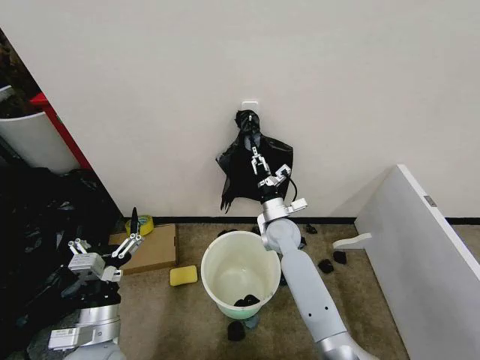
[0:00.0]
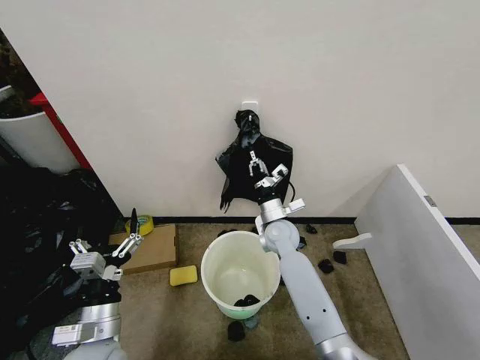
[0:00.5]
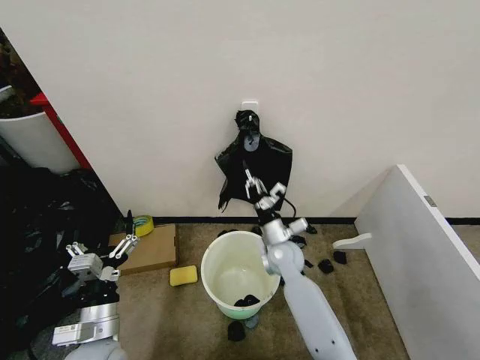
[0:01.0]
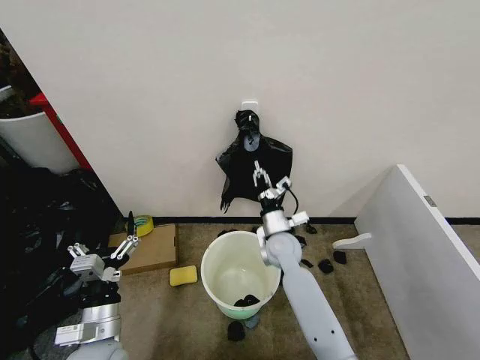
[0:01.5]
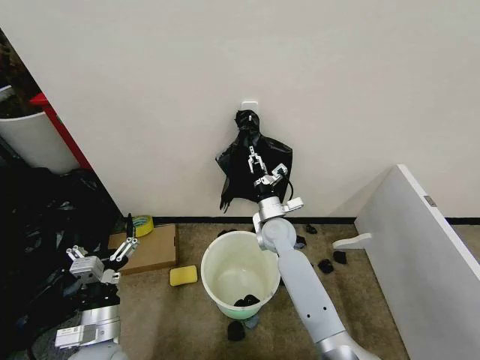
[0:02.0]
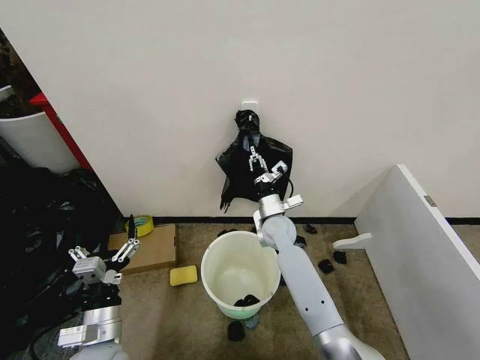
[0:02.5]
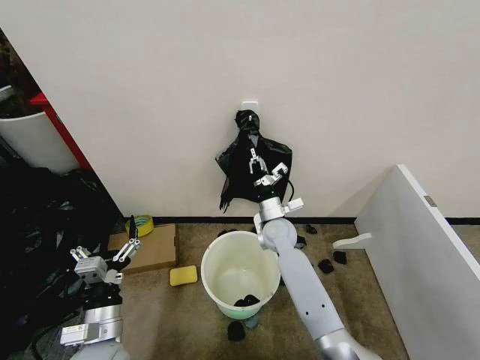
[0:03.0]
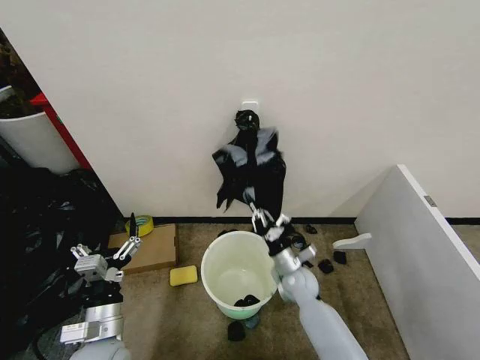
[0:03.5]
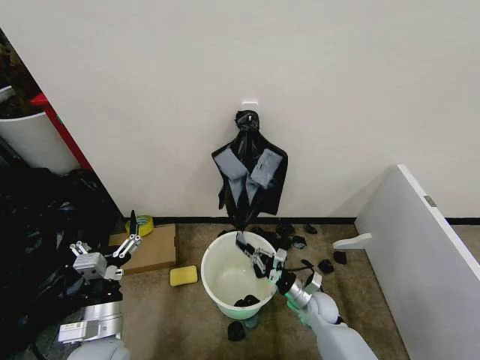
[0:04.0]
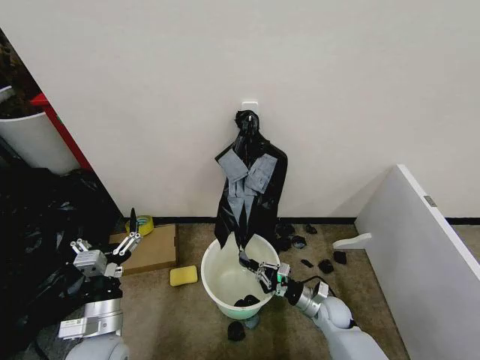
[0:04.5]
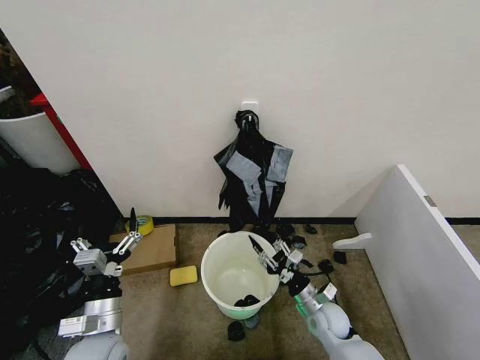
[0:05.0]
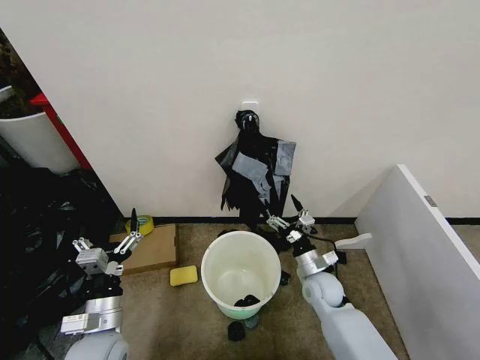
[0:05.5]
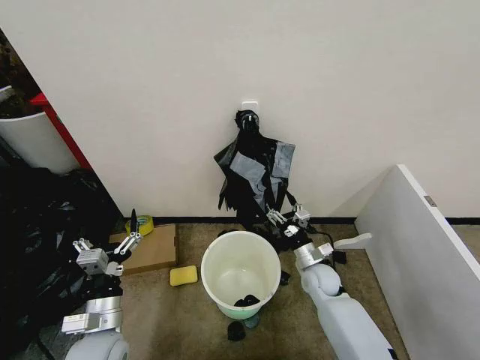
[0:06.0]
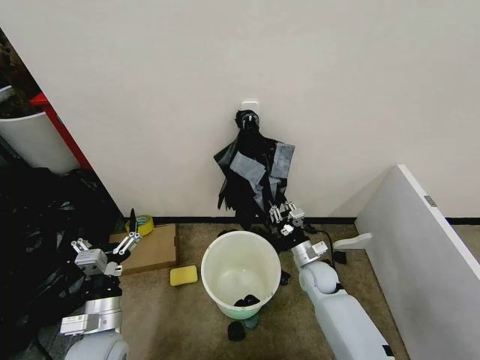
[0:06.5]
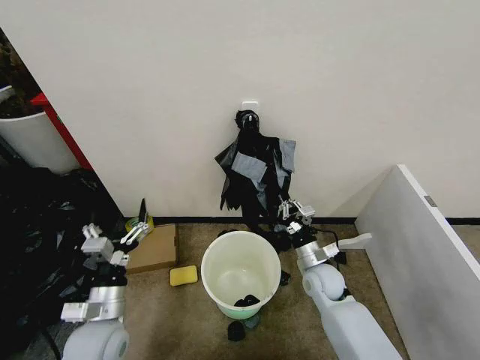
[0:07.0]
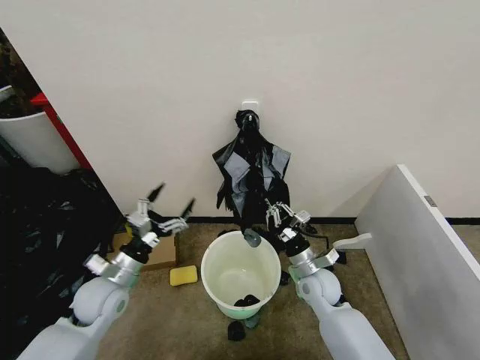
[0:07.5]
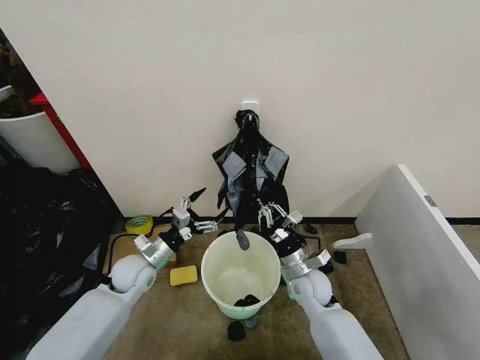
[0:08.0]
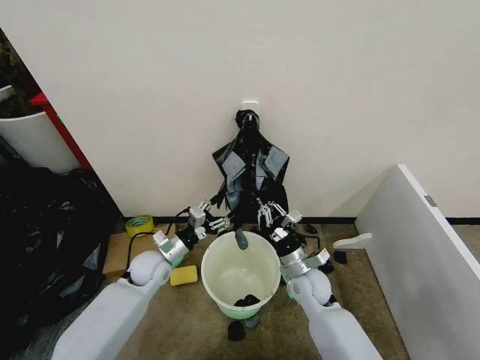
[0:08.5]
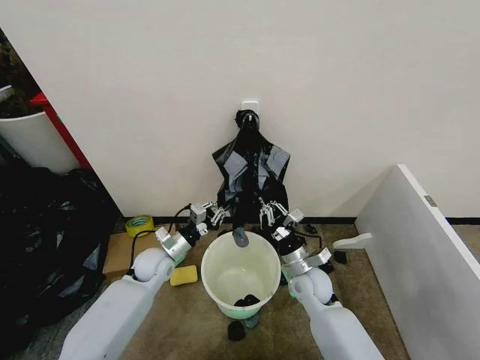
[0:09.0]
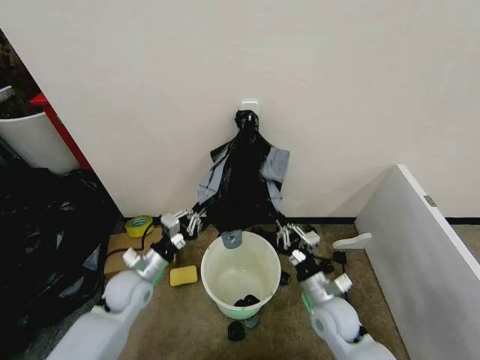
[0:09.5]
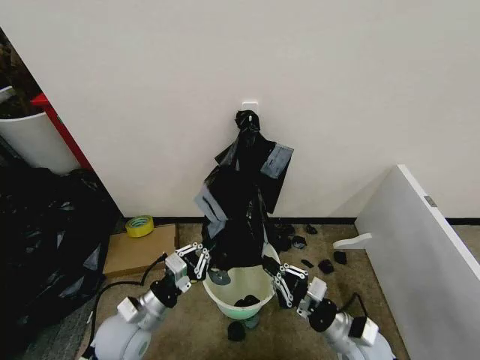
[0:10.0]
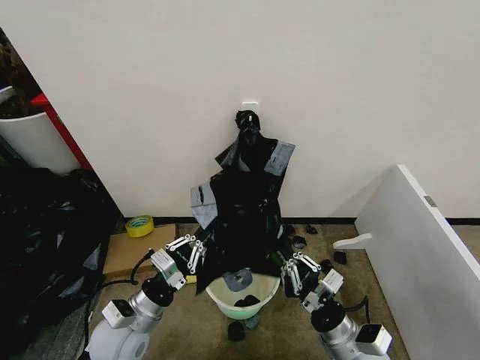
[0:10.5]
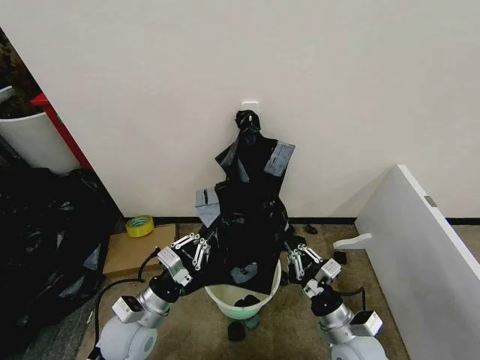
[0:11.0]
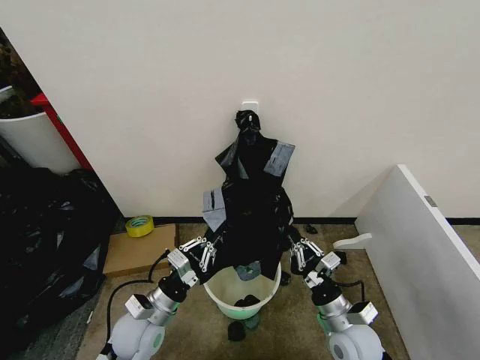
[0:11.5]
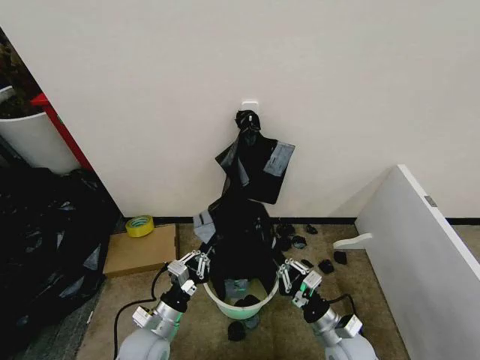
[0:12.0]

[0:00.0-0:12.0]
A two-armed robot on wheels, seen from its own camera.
Task of the whole recording: Place the garbage bag over the trash bin.
0:00.0 to 0:02.0: The right gripper closes, then opens again.
0:02.0 to 0:04.0: The right gripper shifts roughly 25 cm downward, backward and to the right, and closes up.
0:04.0 to 0:06.0: The right gripper shifts roughly 10 cm upward and forward, and opens its fingers.
0:06.0 to 0:08.0: The right gripper shifts by roughly 10 cm, and closes its fingers; the left gripper travels forward by roughly 15 cm.
0:08.0 to 0:10.0: The left gripper travels backward by about 15 cm, and closes; the right gripper travels backward and to the right by some 15 cm.
0:10.0 to 0:12.0: The left gripper changes place by roughly 5 cm.

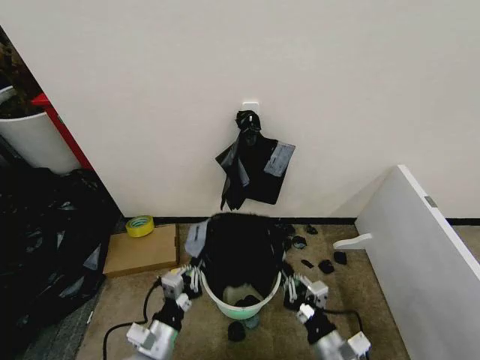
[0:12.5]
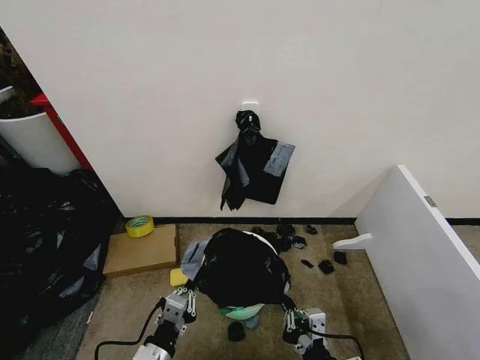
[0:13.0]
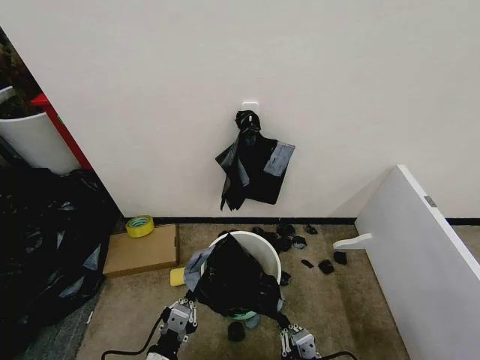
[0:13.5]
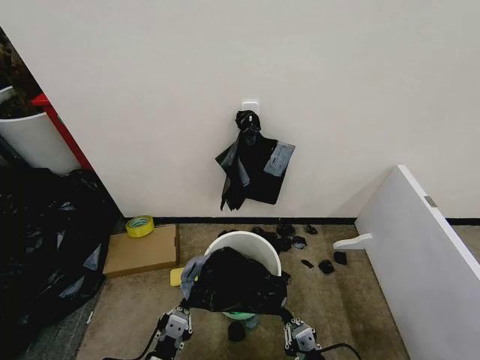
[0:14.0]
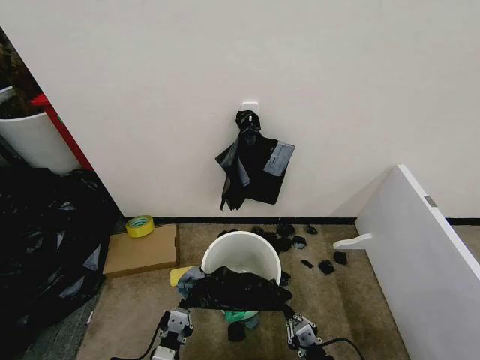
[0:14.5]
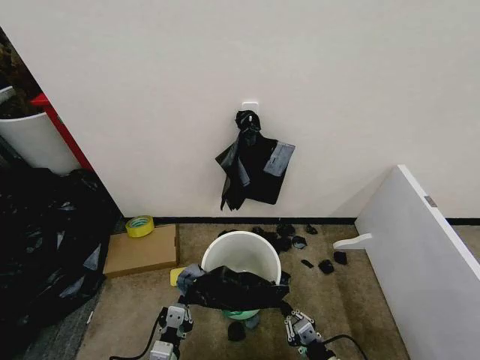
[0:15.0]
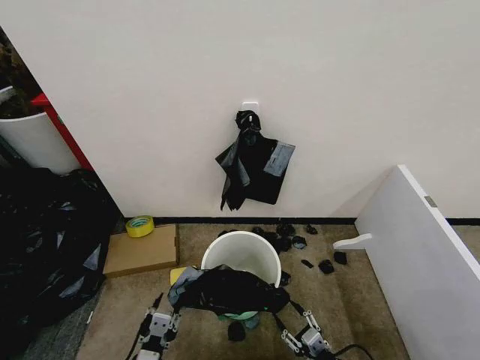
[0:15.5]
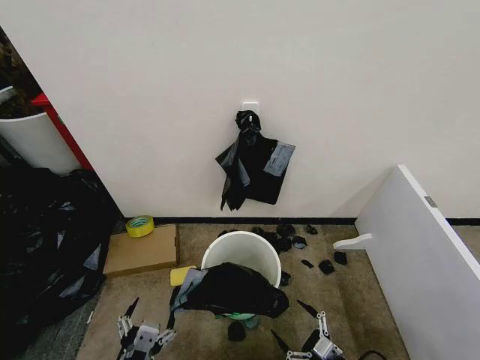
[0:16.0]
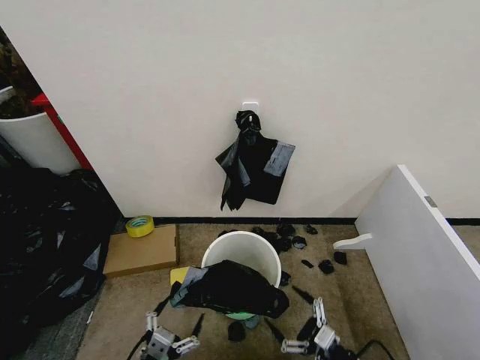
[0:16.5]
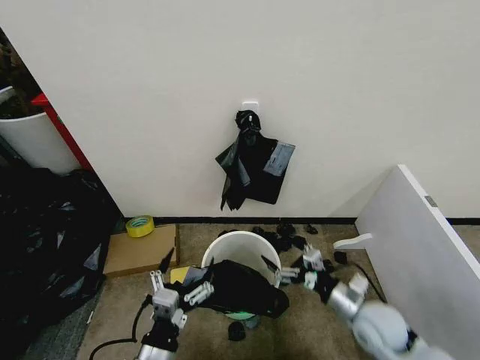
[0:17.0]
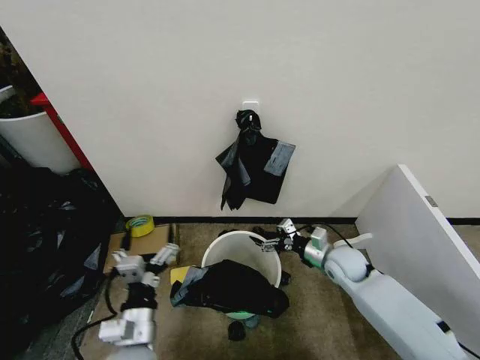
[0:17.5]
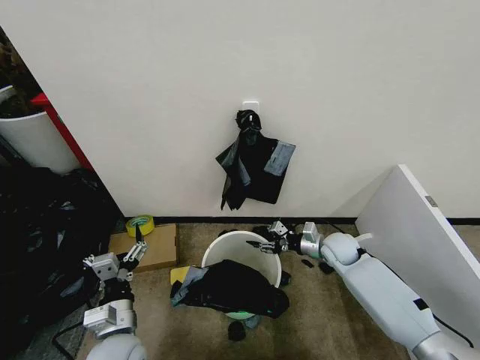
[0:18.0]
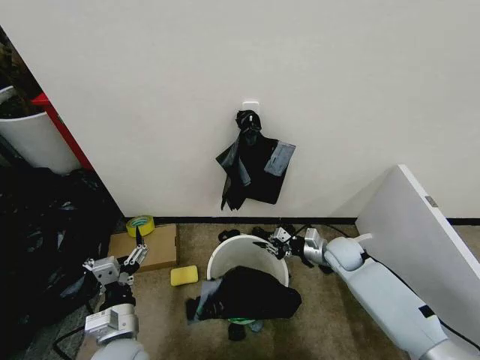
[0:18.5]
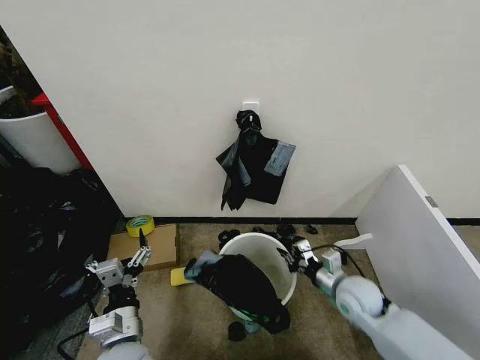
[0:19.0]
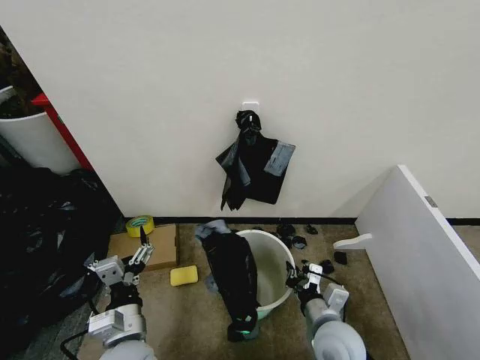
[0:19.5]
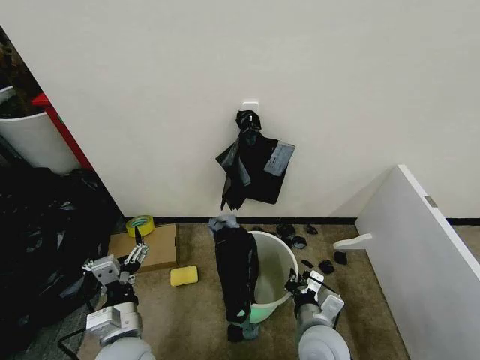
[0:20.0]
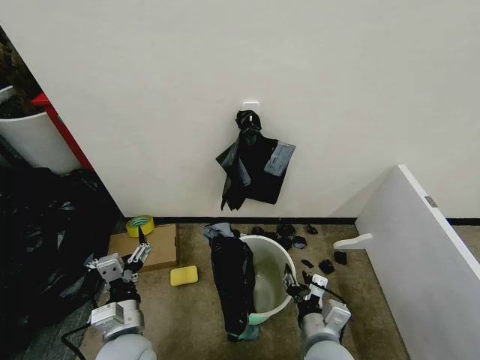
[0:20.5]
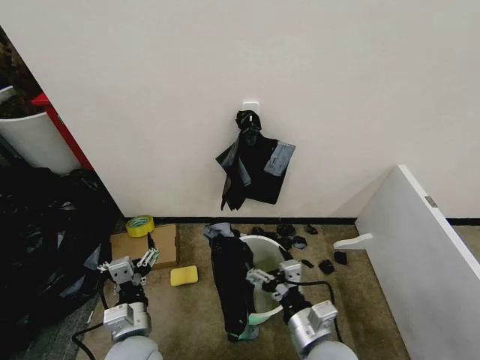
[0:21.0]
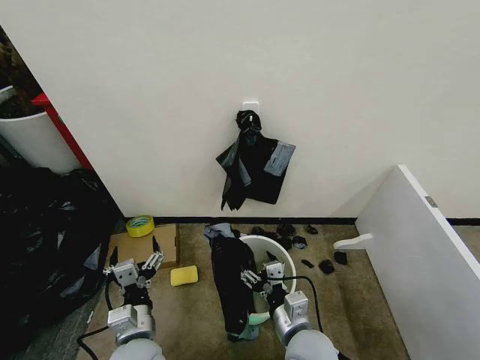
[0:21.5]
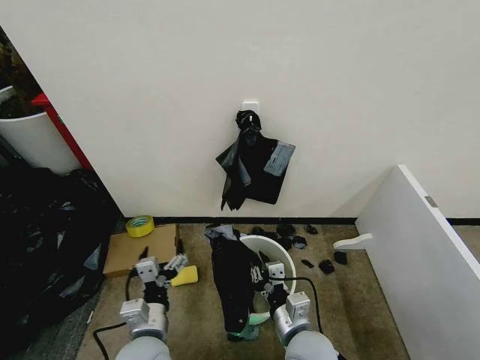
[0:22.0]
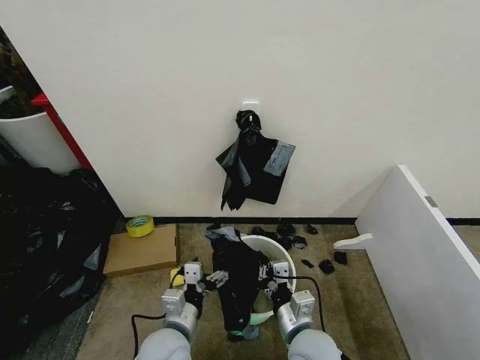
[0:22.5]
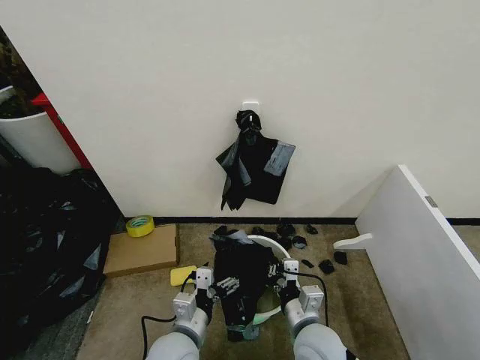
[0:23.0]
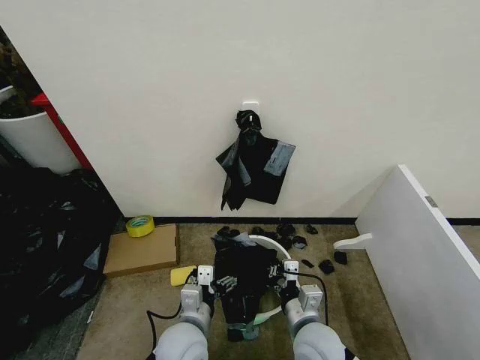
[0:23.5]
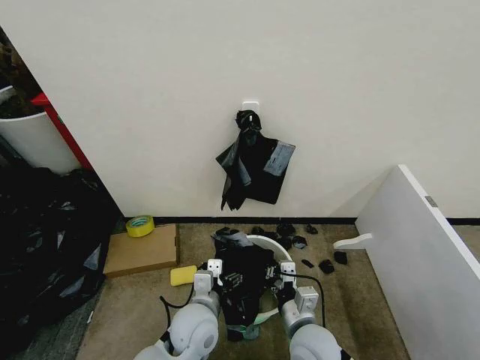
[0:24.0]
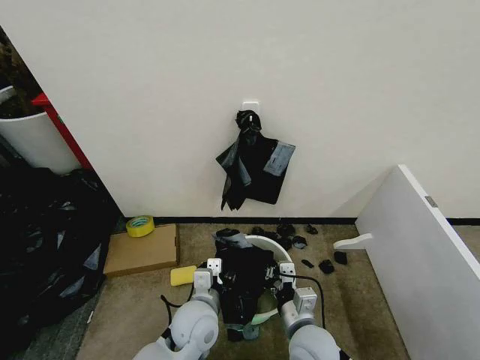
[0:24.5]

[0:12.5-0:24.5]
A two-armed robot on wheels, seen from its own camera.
Task of the whole recording: Place the garbage bag over the trash bin.
0:12.5 to 0:14.5: The right gripper shifts approximately 10 cm downward, while the left gripper moves backward, about 5 cm.
0:14.5 to 0:16.5: The left gripper moves to the left, some 5 cm, and opens up. Meanwhile the right gripper travels to the right by roughly 5 cm, and opens.
0:16.5 to 0:18.5: The left gripper shifts some 10 cm forward, while the right gripper heads forward, covering about 30 cm, and closes up.
0:18.5 to 0:20.5: The right gripper shifts roughly 30 cm backward and to the left, and opens its fingers.
0:20.5 to 0:22.5: The left gripper travels to the right by about 5 cm, while the right gripper closes.
0:22.5 to 0:24.5: The left gripper moves to the right and forward, approximately 10 cm, and closes up.

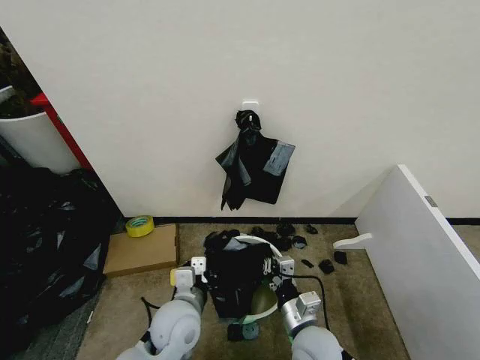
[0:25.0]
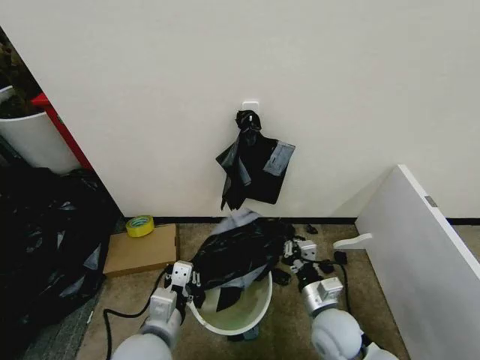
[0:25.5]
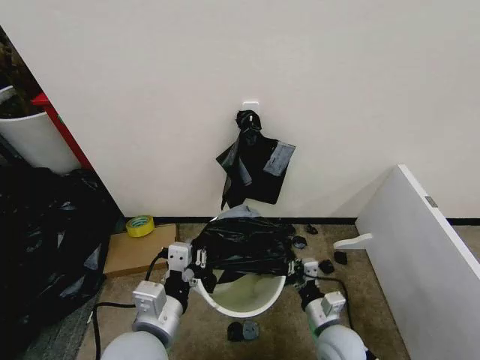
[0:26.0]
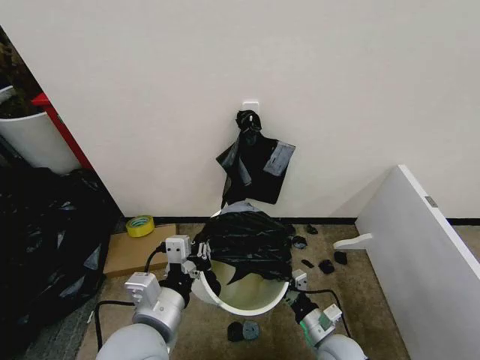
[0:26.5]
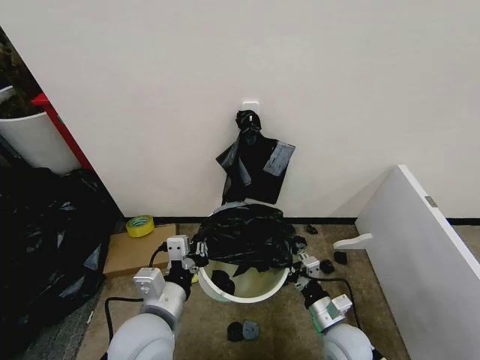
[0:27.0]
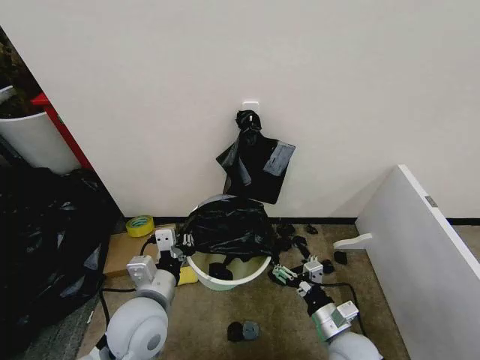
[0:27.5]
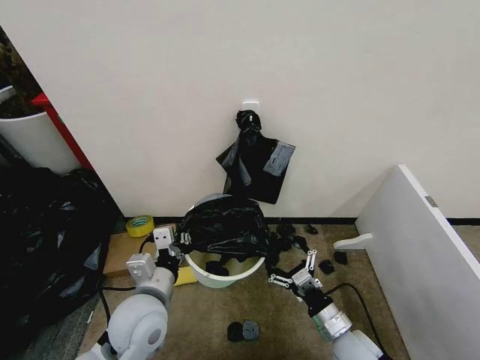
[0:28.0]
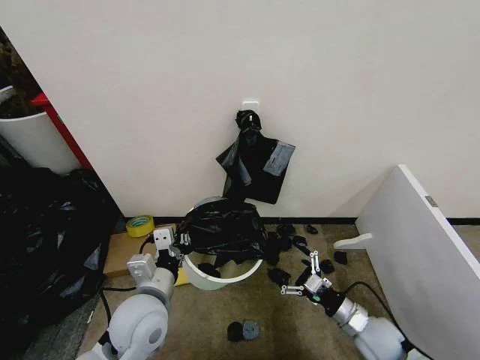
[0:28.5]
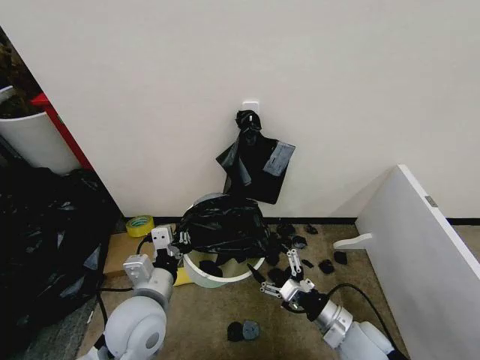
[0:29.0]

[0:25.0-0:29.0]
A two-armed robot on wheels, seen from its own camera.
Task of the whole recording: Place the garbage bag over the trash bin.
0:25.0 to 0:27.0: The left gripper shifts roughly 10 cm upward and backward, while the right gripper heads to the right, covering roughly 10 cm.
0:27.0 to 0:29.0: The right gripper moves about 10 cm to the right and comes back, and opens.
